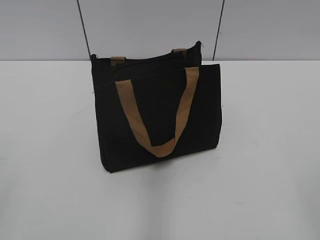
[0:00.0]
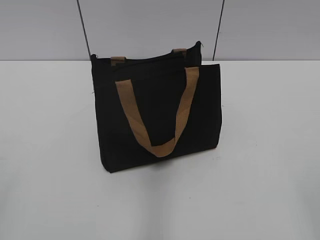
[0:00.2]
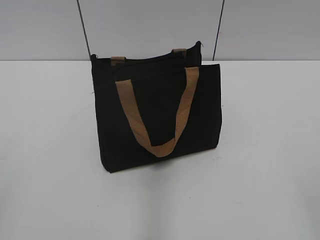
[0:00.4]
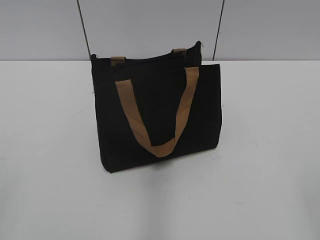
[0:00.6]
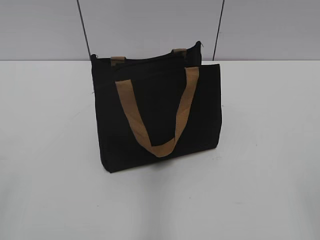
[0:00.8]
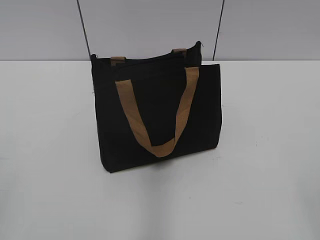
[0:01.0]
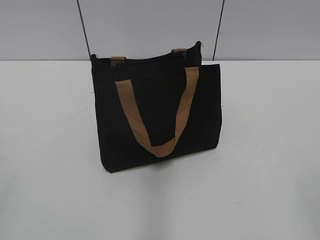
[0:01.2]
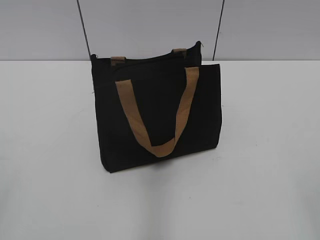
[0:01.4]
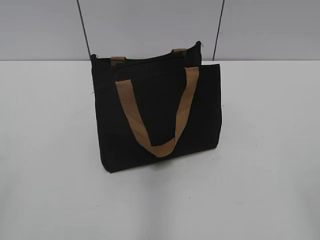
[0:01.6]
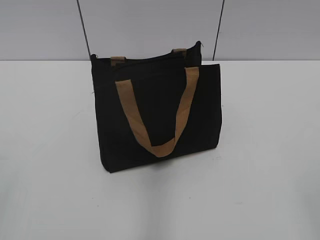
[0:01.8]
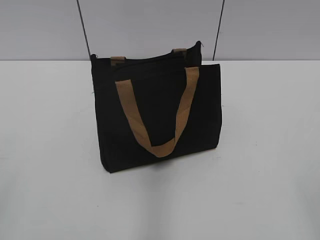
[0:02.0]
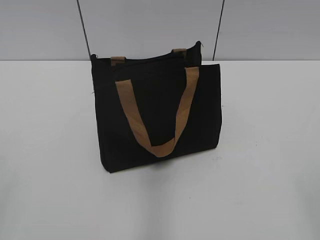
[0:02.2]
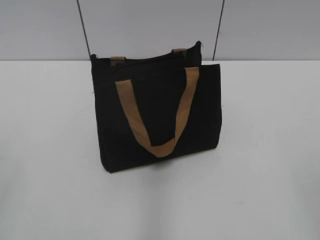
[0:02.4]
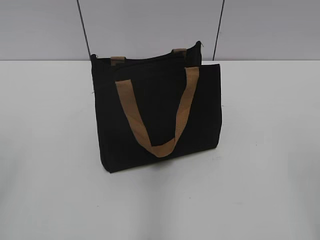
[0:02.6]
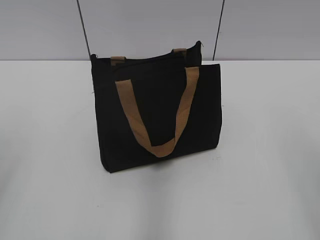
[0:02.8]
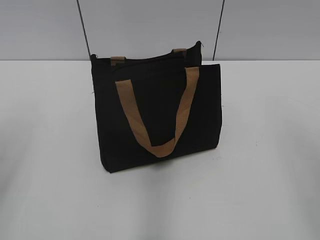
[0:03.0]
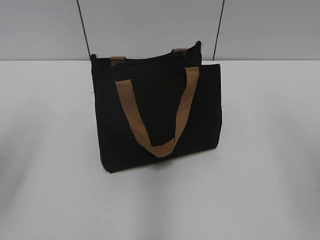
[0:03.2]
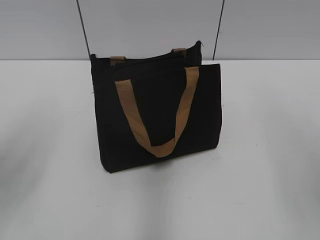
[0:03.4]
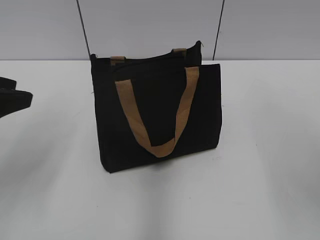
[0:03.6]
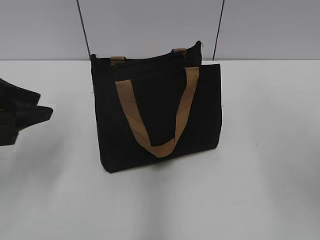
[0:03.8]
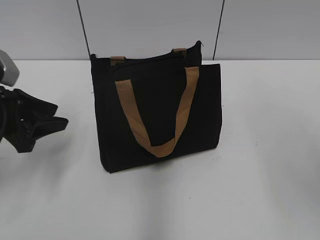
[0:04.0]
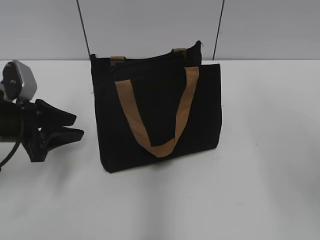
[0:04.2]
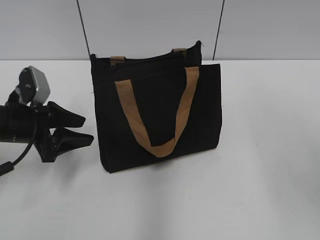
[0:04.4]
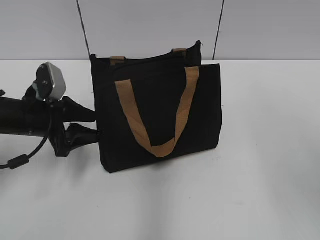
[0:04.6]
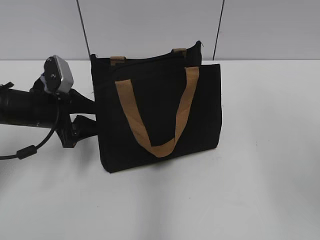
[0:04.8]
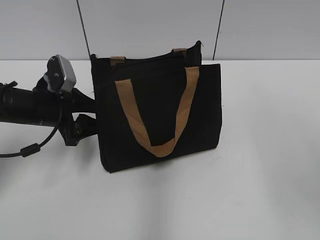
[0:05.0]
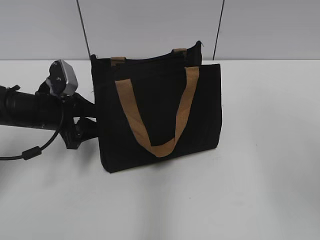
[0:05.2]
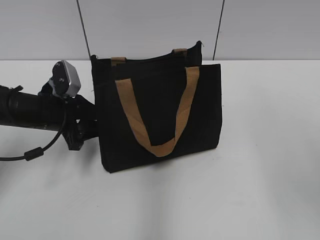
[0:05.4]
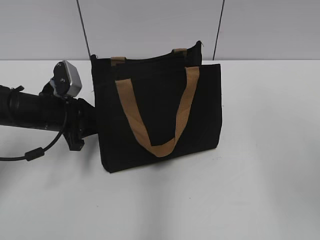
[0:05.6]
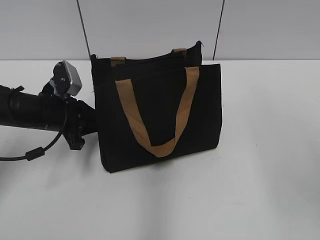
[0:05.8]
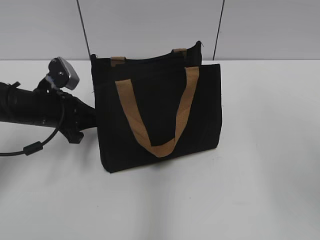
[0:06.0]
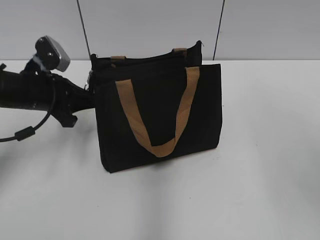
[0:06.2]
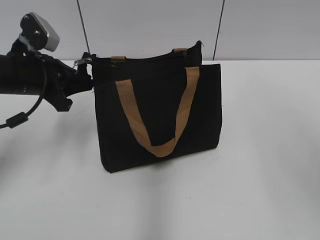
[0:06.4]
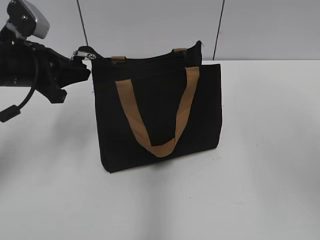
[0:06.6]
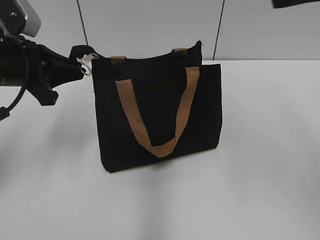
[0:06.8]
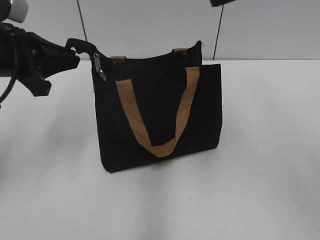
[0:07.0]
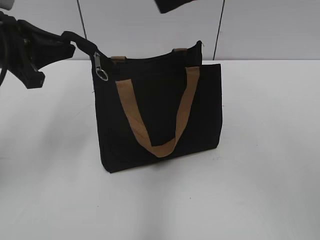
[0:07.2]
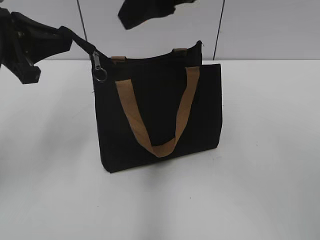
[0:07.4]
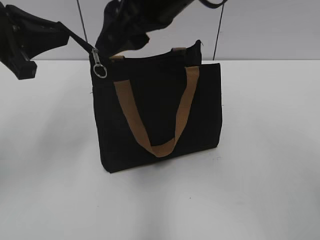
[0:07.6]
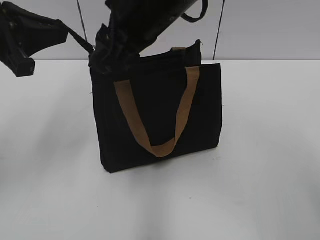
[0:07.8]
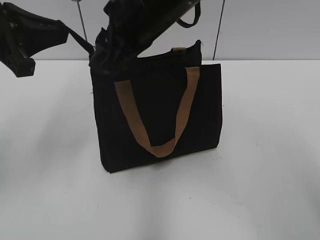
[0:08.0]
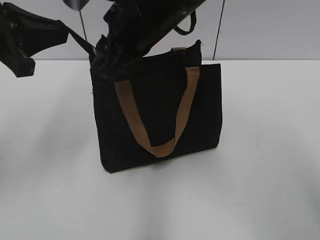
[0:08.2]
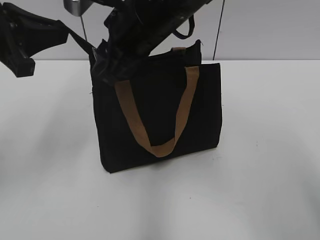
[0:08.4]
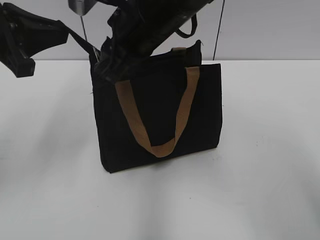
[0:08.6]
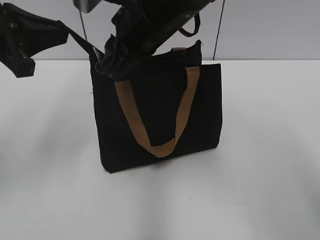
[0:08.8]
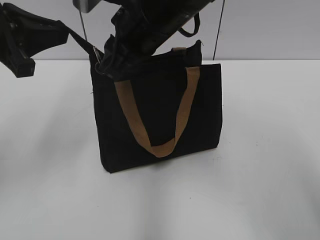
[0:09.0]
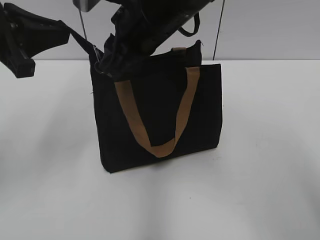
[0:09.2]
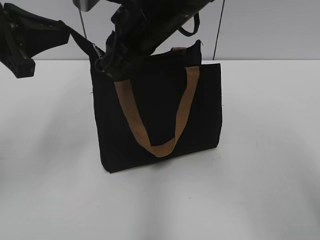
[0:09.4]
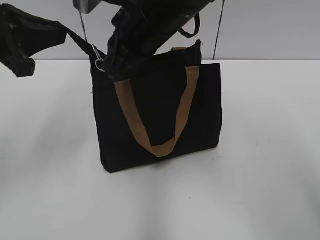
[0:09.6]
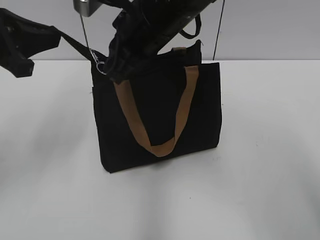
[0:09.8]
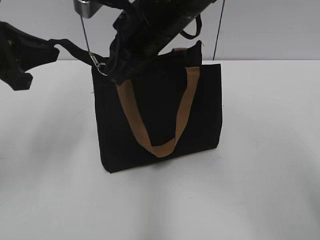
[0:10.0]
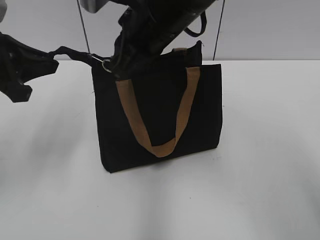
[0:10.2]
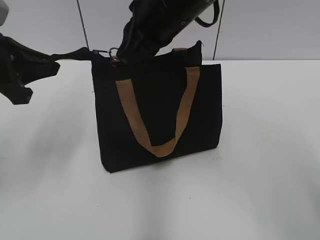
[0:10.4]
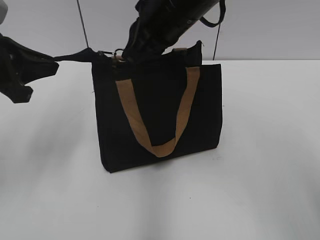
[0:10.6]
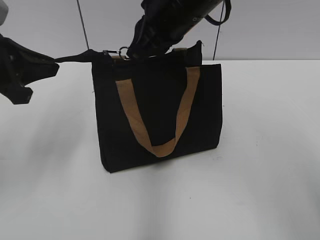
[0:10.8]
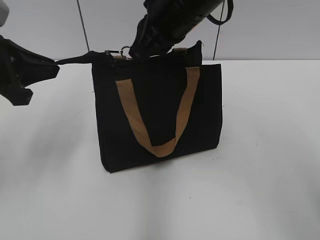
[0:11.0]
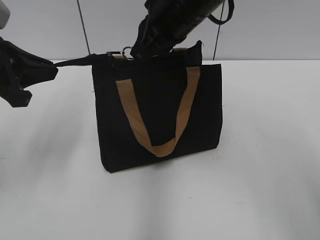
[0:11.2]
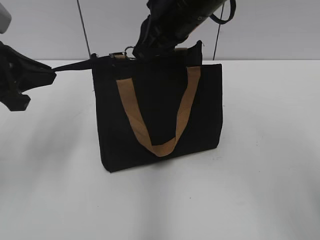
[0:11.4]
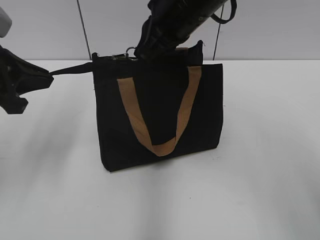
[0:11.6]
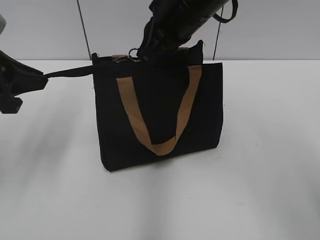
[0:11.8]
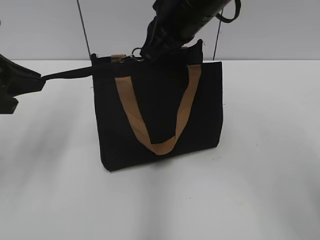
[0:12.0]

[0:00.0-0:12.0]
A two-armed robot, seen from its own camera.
0:03.0 to 0:04.4: The left gripper travels downward and forward by about 25 cm.
0:04.4 to 0:06.0: The left gripper changes place by some 5 cm, and closes its fingers.
0:06.0 to 0:07.6: The left gripper heads upward, covering some 15 cm. The right gripper heads to the left and forward, covering about 25 cm.
0:07.6 to 0:09.0: The right gripper goes approximately 5 cm downward, and closes up.
0:09.0 to 0:10.4: The right gripper closes up.
0:10.4 to 0:12.0: The grippers stay close to where they were, moving slightly.

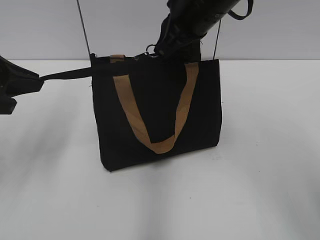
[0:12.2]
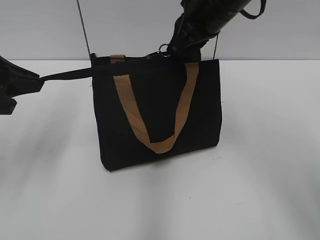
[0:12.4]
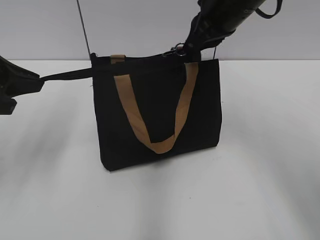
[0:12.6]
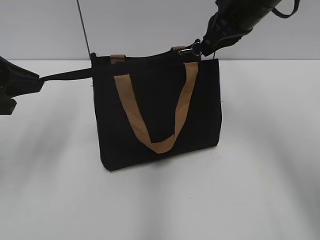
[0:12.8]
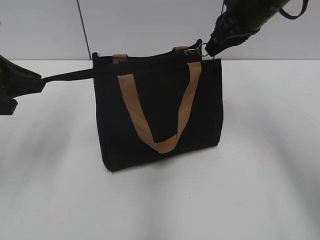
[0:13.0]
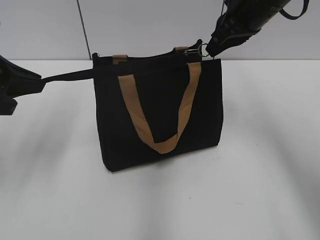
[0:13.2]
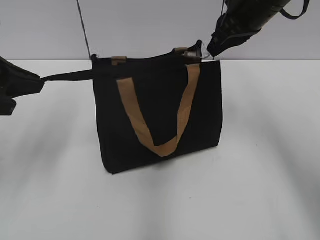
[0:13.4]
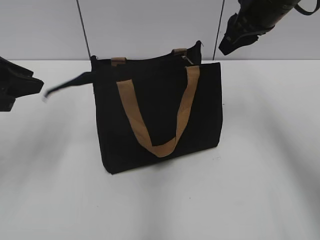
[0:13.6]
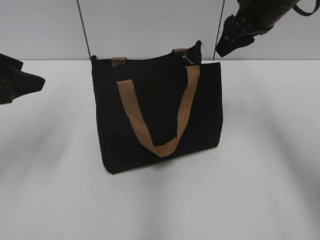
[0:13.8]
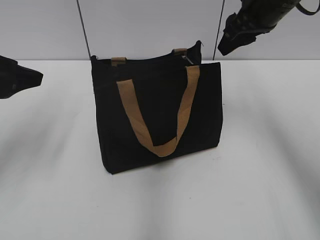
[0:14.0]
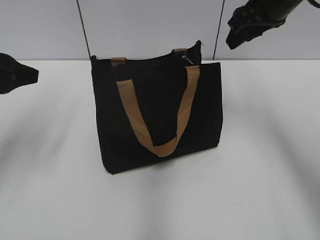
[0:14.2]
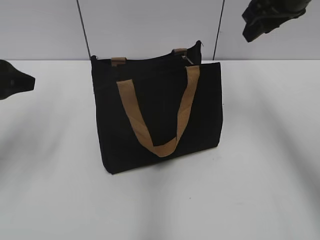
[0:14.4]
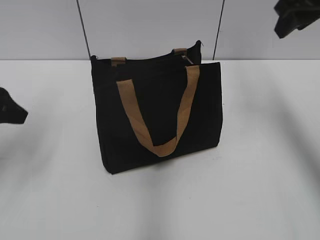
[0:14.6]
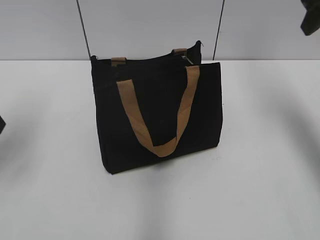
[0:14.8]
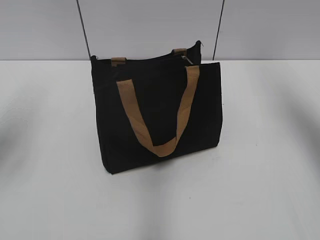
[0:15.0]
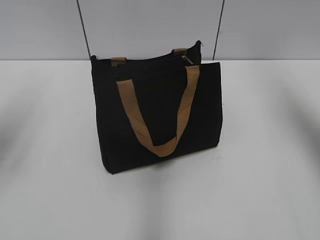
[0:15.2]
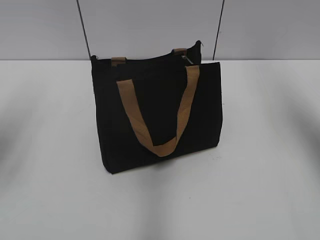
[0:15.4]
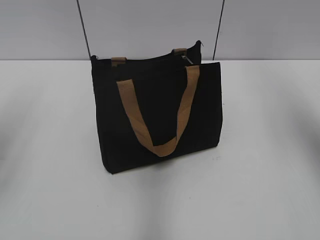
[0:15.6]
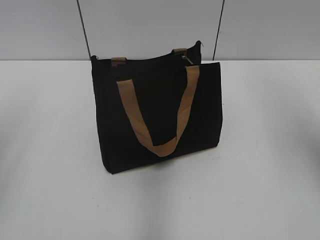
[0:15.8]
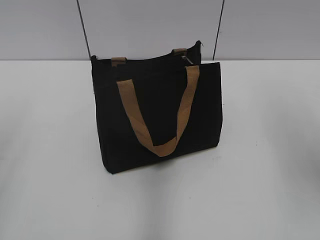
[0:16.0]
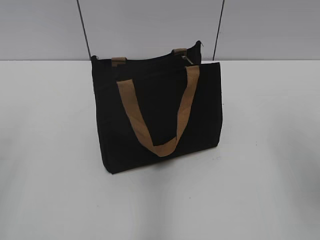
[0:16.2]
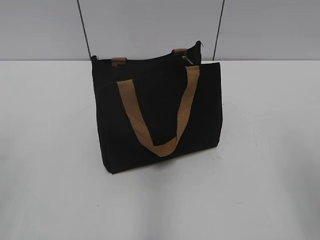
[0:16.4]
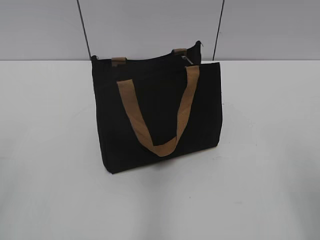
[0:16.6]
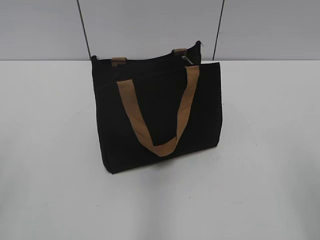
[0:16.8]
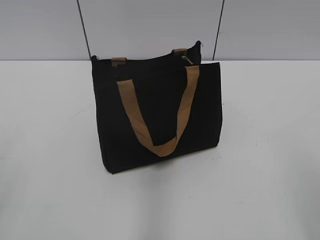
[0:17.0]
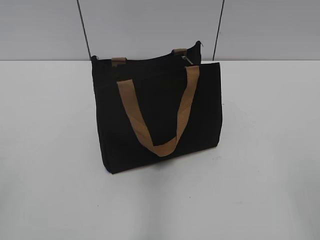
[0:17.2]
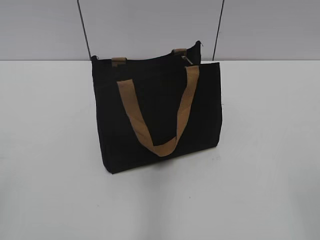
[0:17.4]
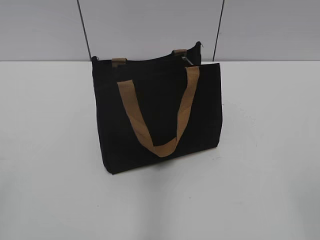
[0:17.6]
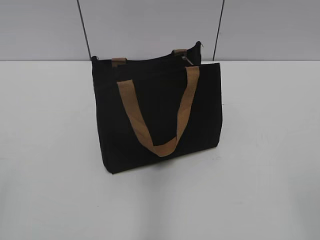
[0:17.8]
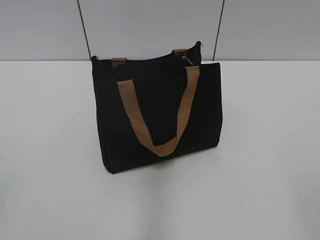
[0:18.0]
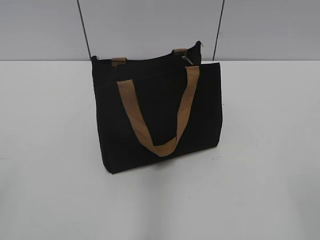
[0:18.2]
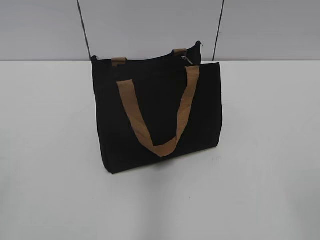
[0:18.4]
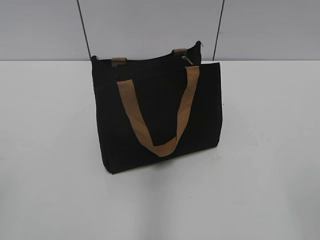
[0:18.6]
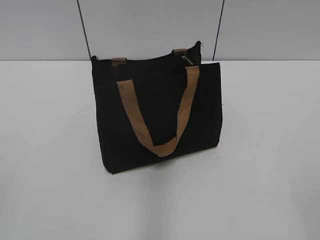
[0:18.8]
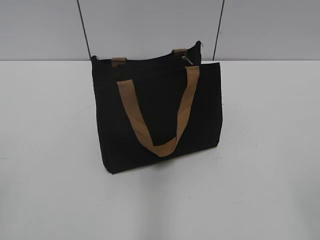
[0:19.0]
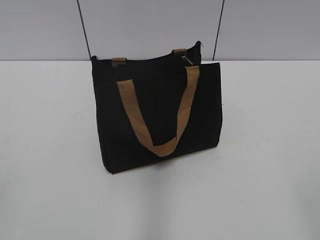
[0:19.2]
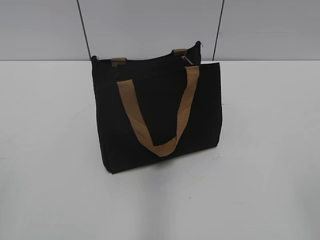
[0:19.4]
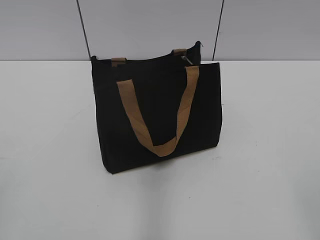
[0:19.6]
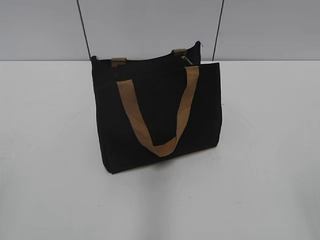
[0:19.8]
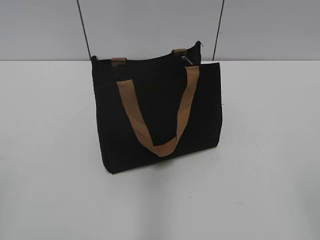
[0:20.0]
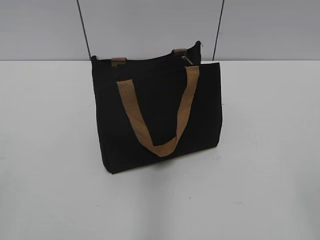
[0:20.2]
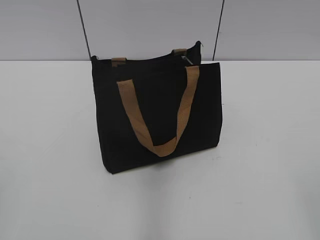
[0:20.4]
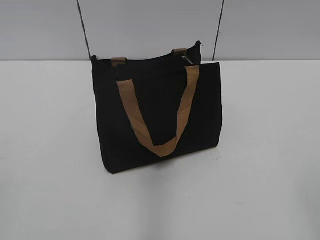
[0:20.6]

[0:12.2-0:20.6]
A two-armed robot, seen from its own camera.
0:12.2 to 0:13.6: The right gripper heads to the right, covering some 10 cm, and opens its fingers; the left gripper opens up.
0:13.6 to 0:15.0: The right gripper goes roughly 15 cm to the right, upward and backward. The left gripper opens up.
0:15.0 to 0:16.4: Both grippers move backward, some 20 cm.
0:19.2 to 0:20.6: The two grippers keep their place.

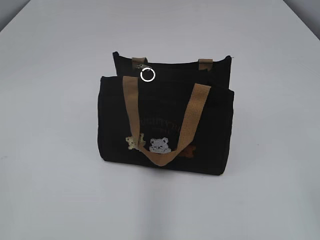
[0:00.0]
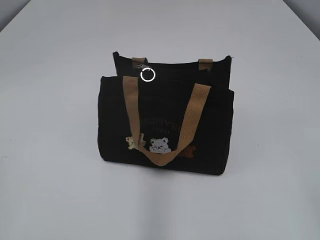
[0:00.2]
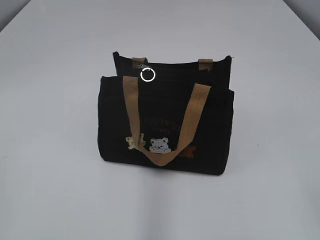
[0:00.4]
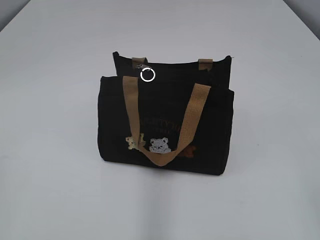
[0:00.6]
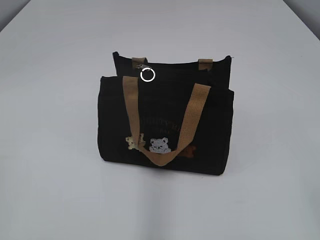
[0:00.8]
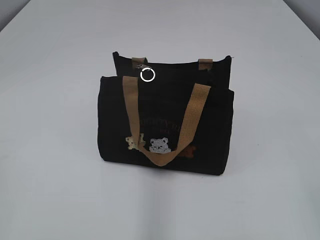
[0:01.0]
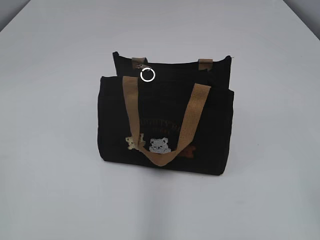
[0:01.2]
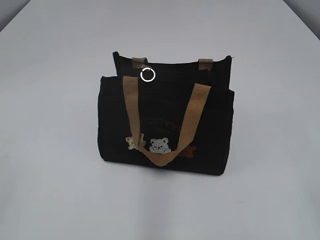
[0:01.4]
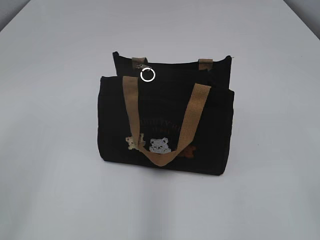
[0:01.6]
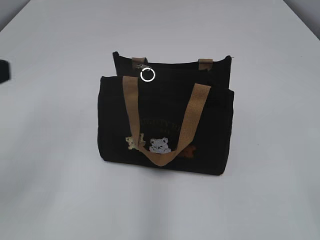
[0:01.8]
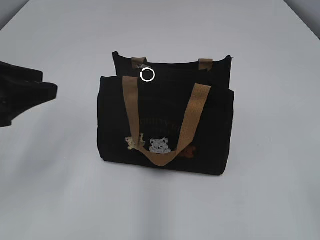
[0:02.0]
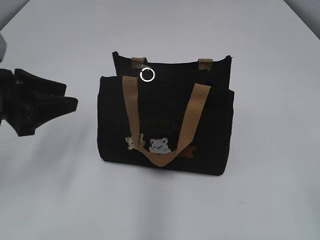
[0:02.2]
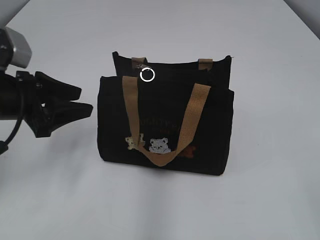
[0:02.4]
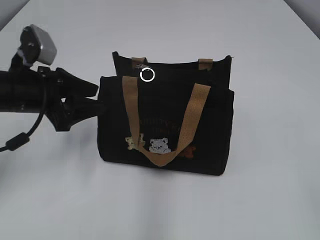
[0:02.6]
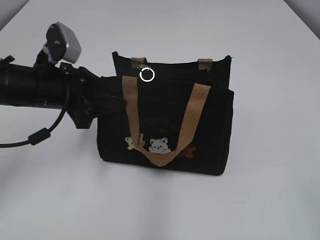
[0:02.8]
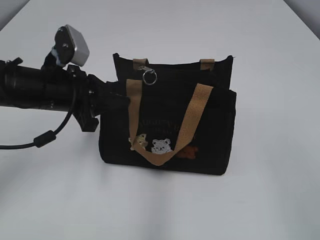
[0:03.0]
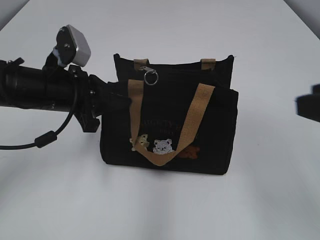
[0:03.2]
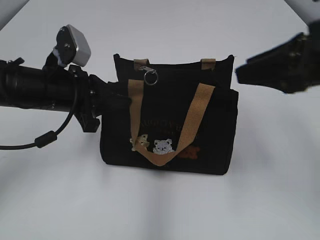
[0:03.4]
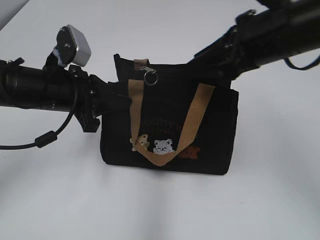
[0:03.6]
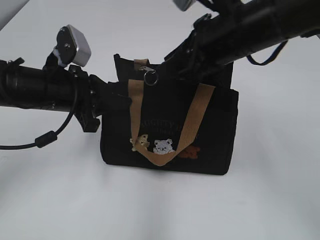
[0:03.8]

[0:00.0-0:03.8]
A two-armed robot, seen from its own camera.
0:01.2 to 0:02.6: The left gripper is displaced forward by some 30 cm, and opens.
0:02.6 to 0:03.8: The right gripper moves forward and to the left, about 35 cm. Meanwhile the left gripper is displaced to the right by some 5 cm, and closes up.
